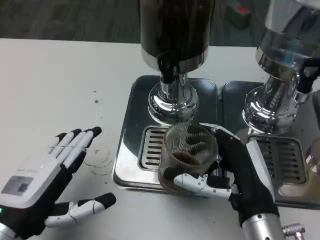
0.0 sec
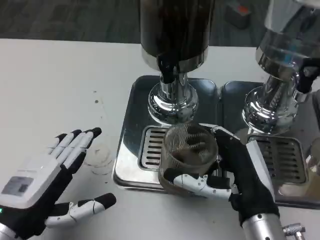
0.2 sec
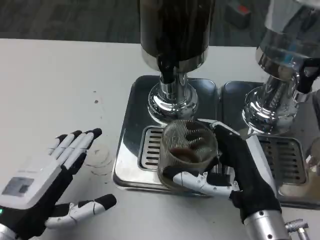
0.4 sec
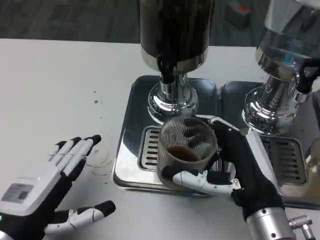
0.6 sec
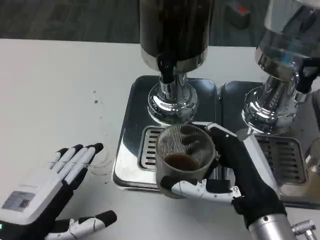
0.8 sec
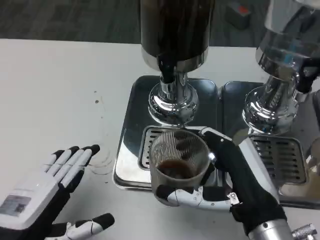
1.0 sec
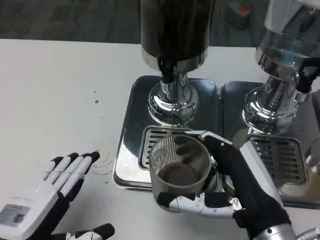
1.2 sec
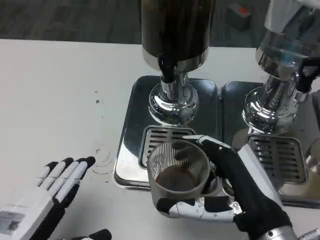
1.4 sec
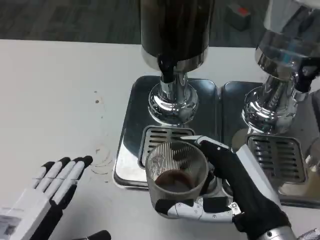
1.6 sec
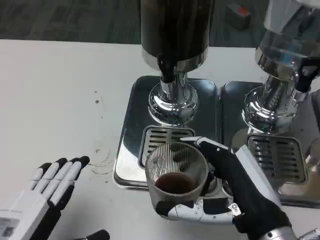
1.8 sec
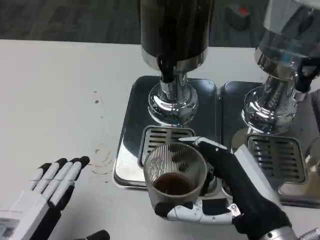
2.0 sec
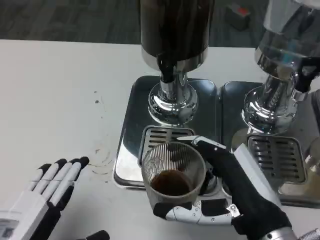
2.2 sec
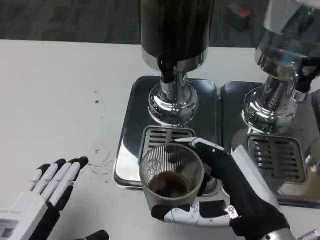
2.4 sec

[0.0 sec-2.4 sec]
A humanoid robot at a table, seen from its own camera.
Task of the whole recording: Grasp the cup under the faucet to collect the drink, then remove the cup.
1.2 sec to 2.4 sec: The hands make only small movements.

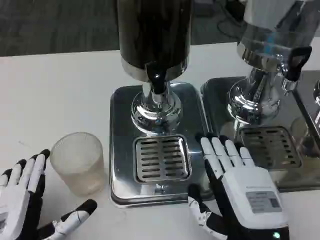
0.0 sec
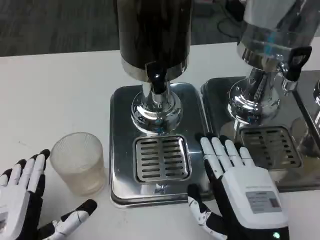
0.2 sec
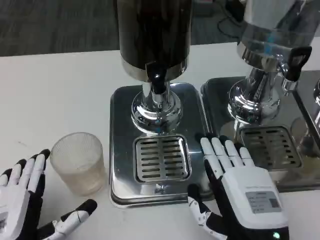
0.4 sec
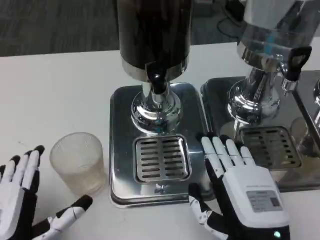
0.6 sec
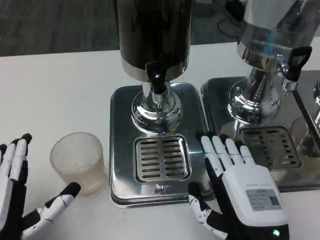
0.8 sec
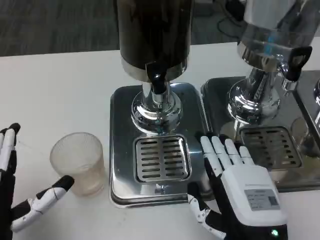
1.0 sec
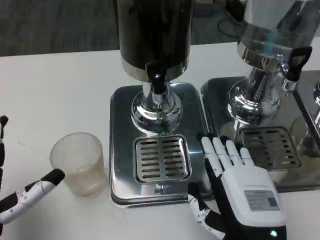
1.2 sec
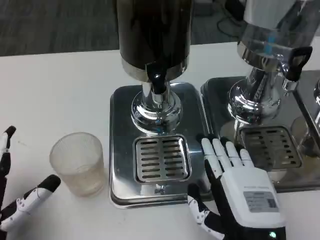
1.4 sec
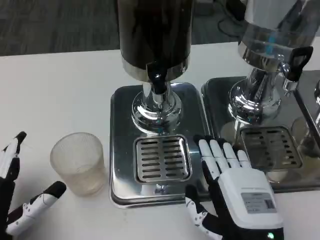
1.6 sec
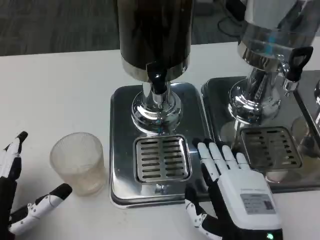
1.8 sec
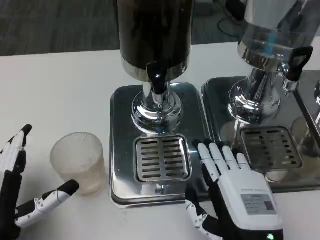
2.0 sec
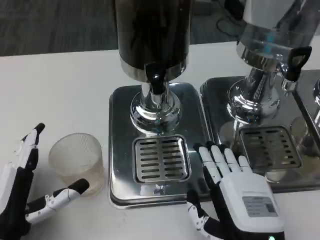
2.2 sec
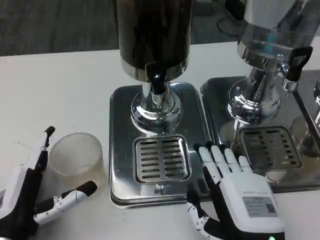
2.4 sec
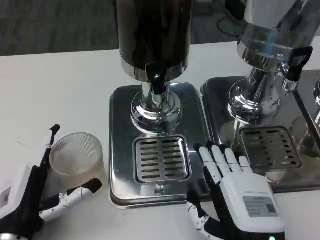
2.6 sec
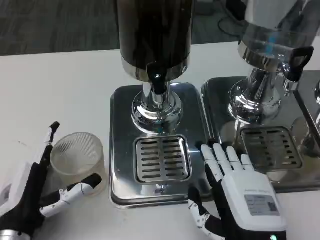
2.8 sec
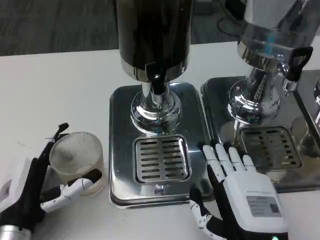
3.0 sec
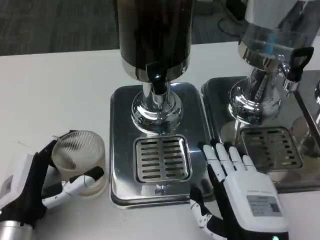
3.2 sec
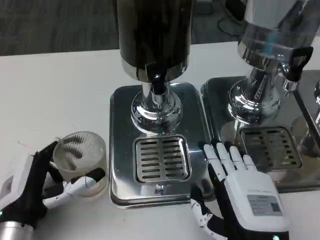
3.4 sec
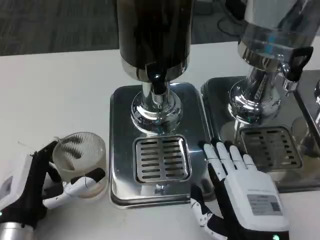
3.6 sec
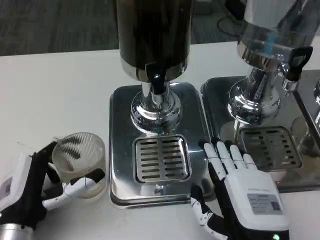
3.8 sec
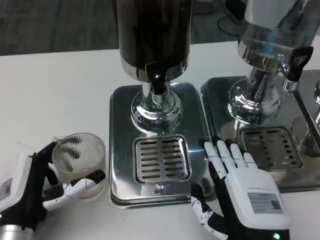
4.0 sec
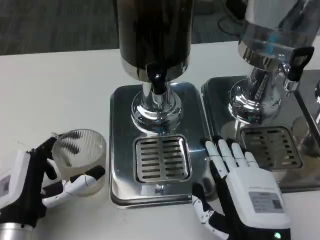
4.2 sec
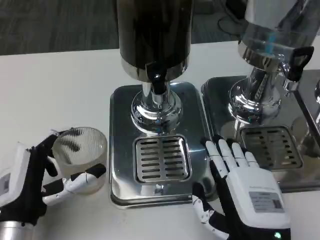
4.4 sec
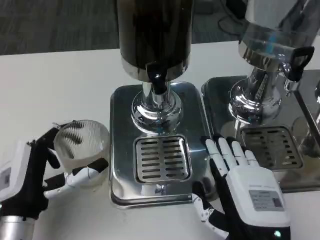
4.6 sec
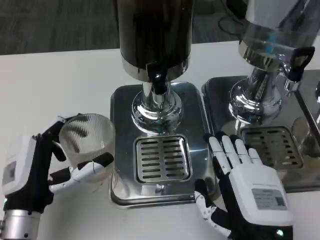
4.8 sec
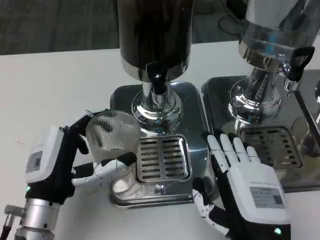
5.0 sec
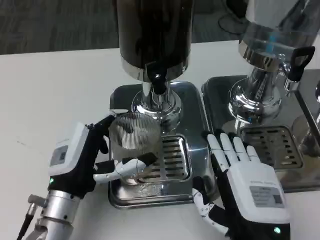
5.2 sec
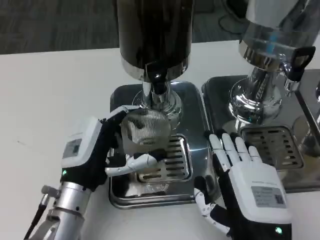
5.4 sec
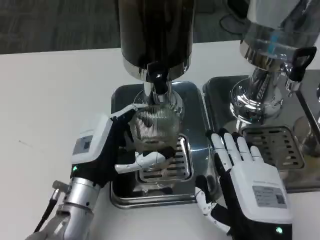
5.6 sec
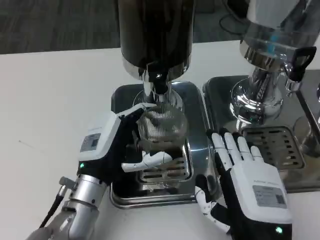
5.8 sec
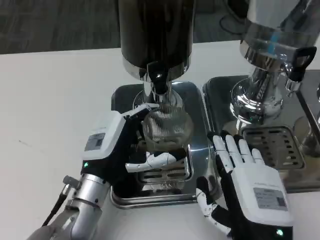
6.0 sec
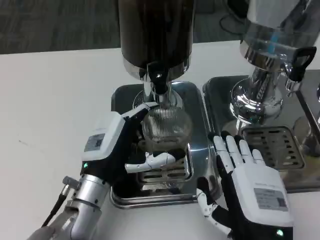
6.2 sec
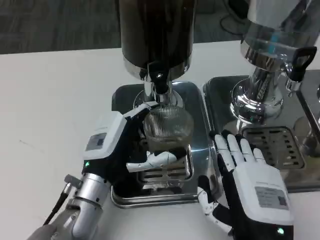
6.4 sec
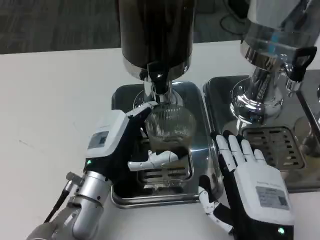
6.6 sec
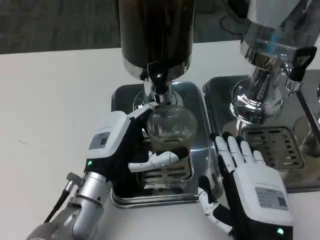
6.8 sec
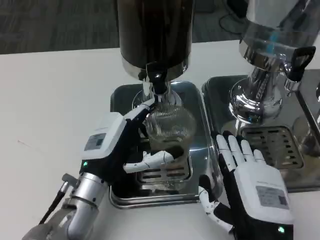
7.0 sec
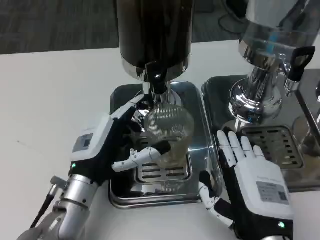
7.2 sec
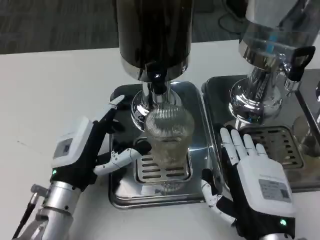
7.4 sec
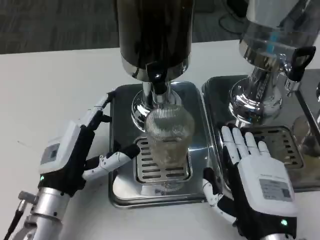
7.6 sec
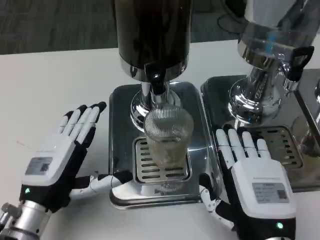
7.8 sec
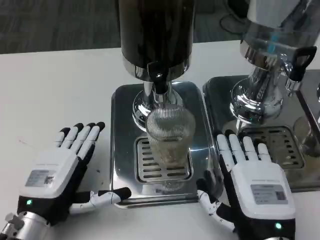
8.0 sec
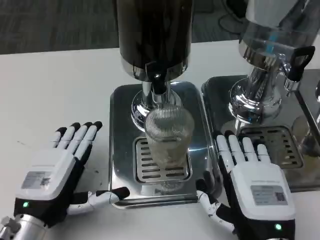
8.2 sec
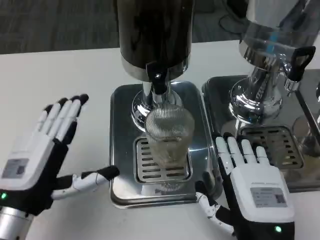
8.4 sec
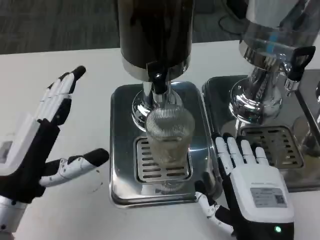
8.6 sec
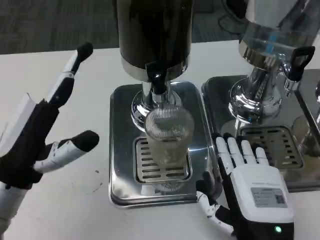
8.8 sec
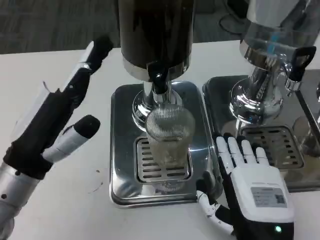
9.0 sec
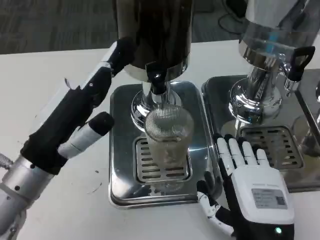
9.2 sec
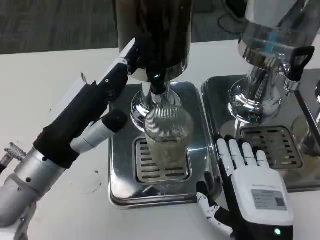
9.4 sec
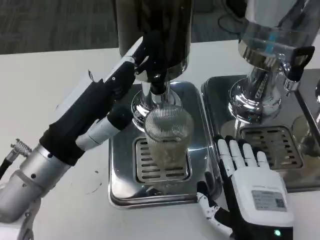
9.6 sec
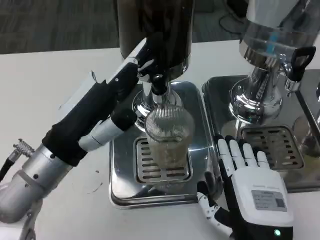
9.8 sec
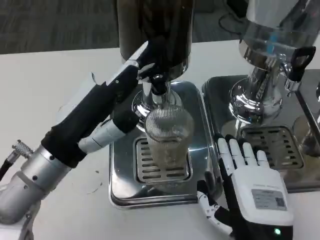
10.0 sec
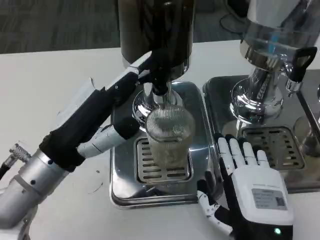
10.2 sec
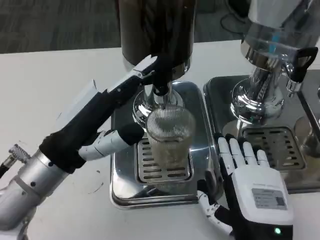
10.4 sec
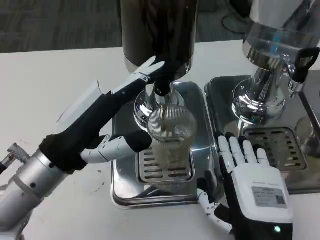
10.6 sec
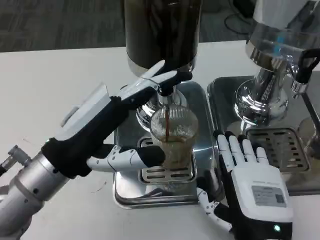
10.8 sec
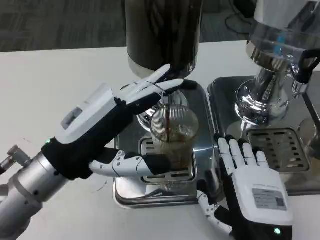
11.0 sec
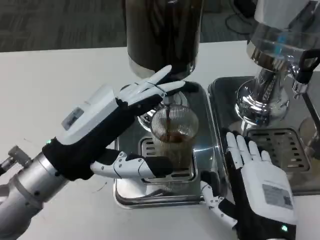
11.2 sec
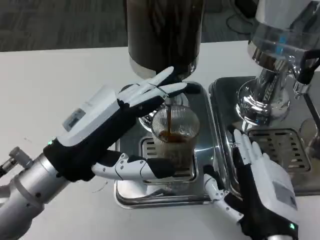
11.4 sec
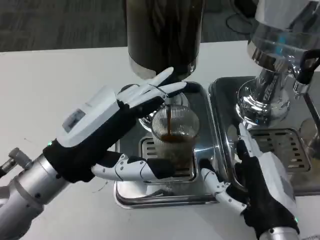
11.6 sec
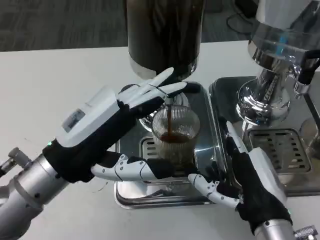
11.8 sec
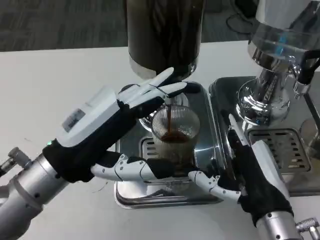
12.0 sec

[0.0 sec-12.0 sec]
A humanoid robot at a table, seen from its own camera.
Task of the whole recording: Grasp the cup under the faucet to collect the drink, then remove the cup.
0.0 sec to 1.6 sec: The left hand ends up about 5 cm from where it was.
1.6 sec to 3.0 sec: The left hand moves approximately 5 cm.
3.0 sec to 4.4 sec: There are only small adjustments of the hands.
4.4 sec to 6.0 sec: The left hand heads to the right and forward, covering some 10 cm.
6.0 sec to 7.6 sec: The left hand travels to the left by roughly 5 cm.
7.6 sec to 9.0 sec: The left hand shifts approximately 10 cm upward.

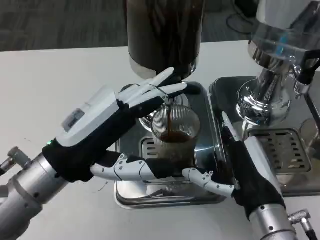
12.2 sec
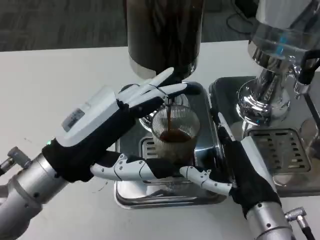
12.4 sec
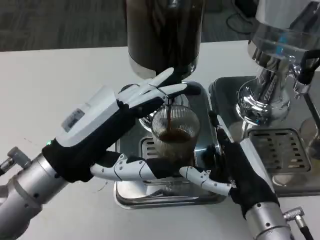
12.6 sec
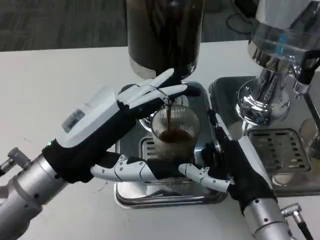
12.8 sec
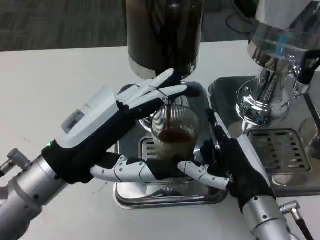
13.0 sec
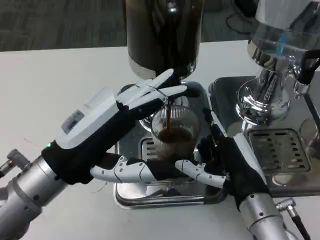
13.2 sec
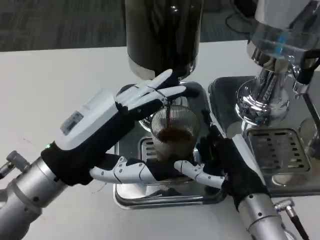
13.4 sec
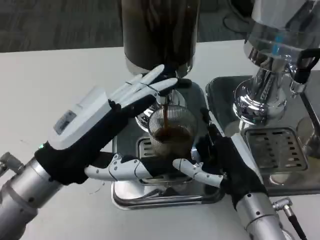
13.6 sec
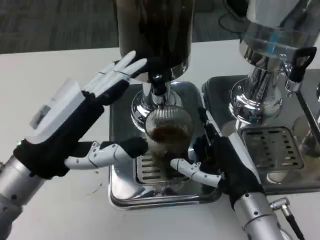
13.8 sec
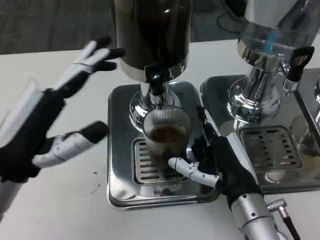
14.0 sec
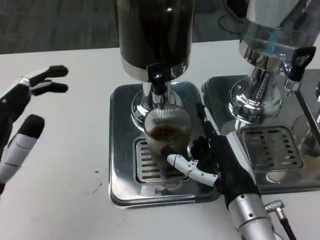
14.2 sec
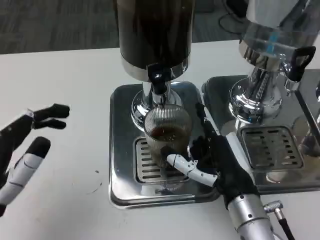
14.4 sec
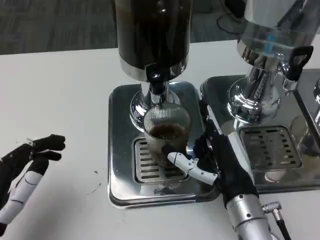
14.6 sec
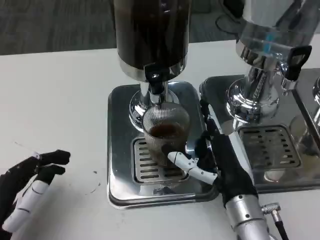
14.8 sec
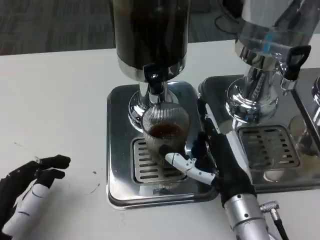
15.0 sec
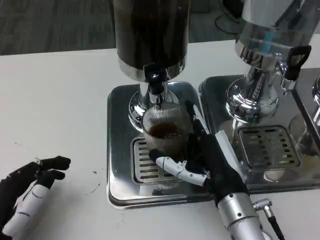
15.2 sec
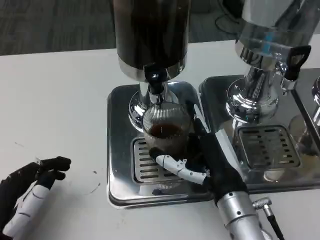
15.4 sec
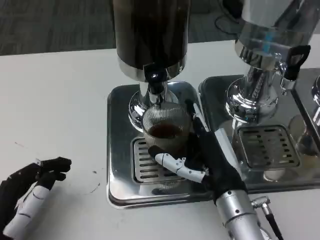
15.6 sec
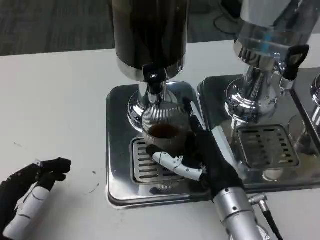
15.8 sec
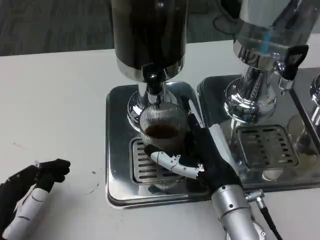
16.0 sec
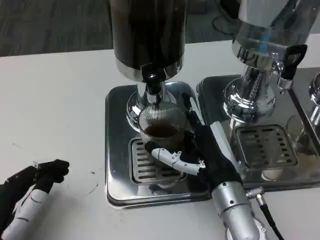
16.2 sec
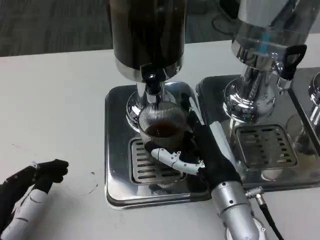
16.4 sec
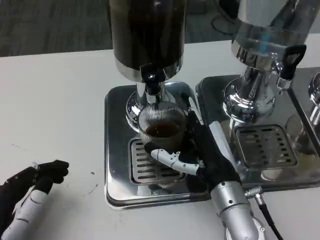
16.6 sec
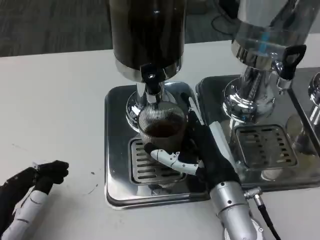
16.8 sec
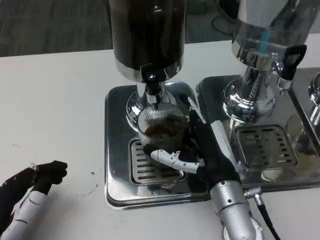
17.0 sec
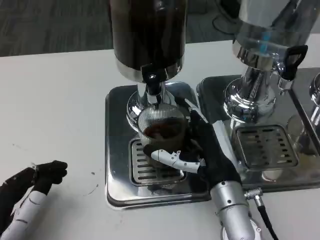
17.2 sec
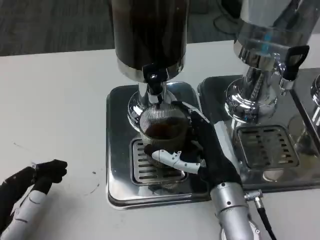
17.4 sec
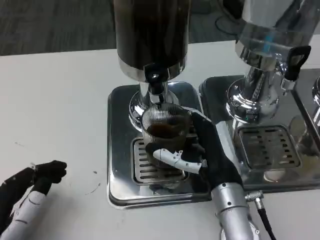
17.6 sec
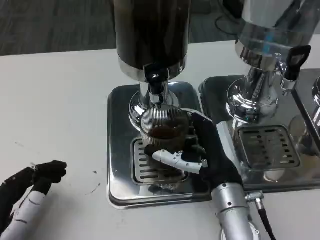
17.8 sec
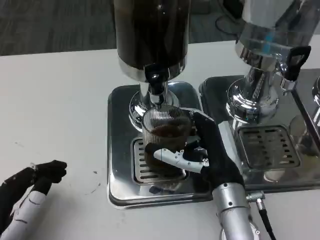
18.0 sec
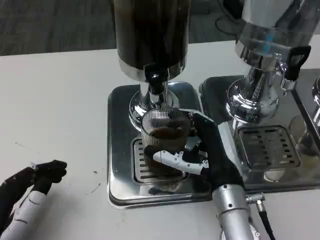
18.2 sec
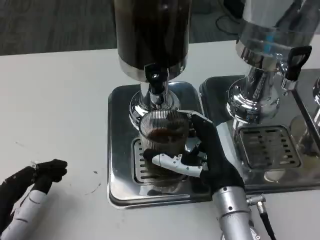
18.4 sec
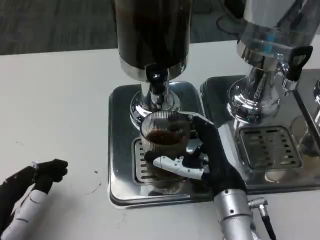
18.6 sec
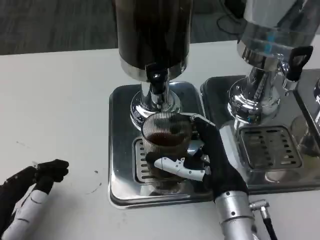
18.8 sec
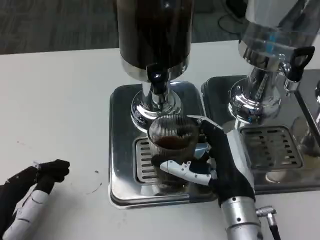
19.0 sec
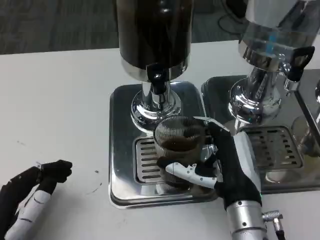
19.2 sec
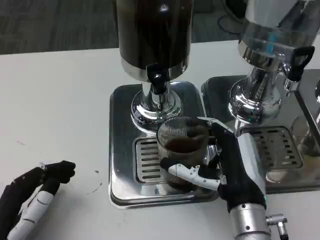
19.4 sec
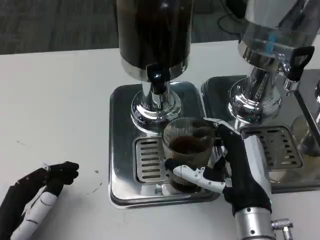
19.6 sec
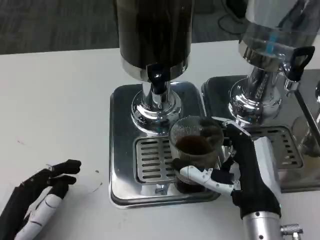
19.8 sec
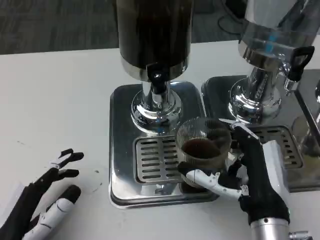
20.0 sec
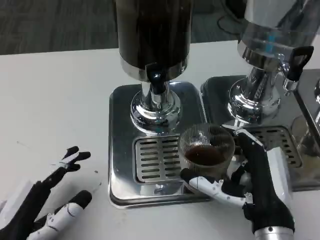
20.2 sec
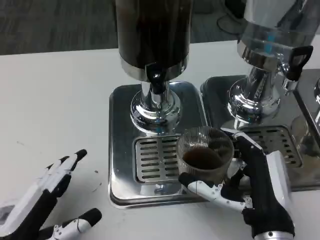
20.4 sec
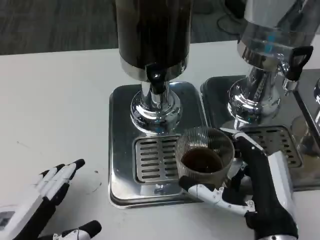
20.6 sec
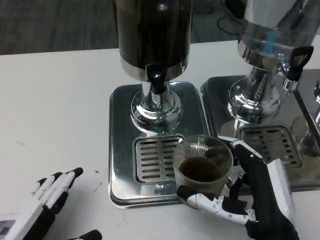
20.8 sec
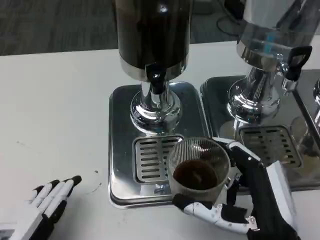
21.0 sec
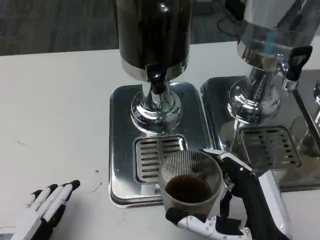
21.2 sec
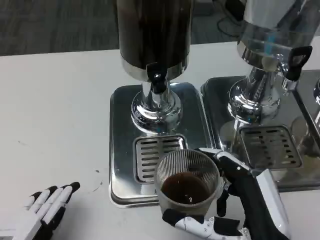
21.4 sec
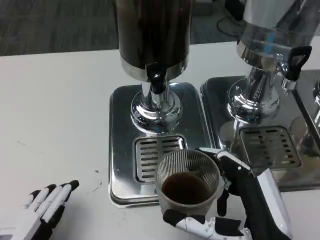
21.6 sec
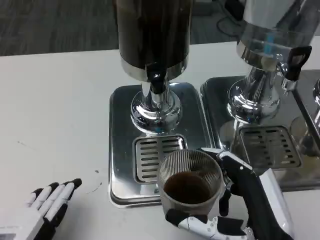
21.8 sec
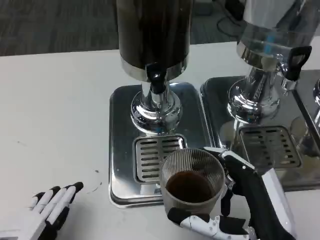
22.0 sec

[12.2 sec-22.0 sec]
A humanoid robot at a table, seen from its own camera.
Task of the whole recording: Grasp the cup under the faucet to collect the drink, then remove the cup.
13.6 sec to 15.0 sec: The left hand shifts roughly 15 cm downward, backward and to the left.
16.4 sec to 17.8 sec: The hands move only a little.
19.2 sec to 20.6 sec: The right hand heads backward, covering about 5 cm.
20.6 sec to 22.0 sec: The hands stay close to where they were, moving slightly.
